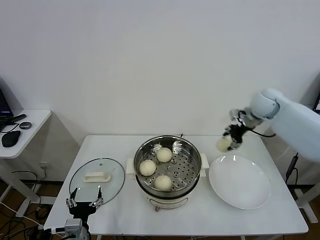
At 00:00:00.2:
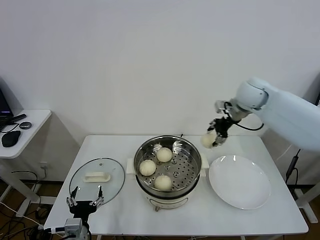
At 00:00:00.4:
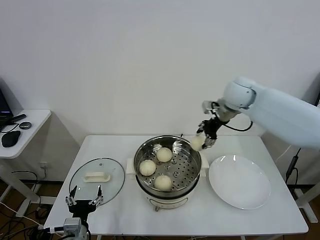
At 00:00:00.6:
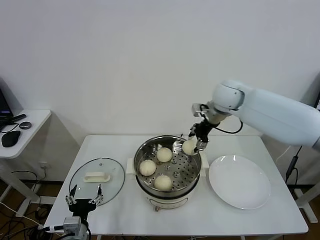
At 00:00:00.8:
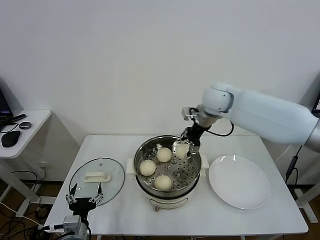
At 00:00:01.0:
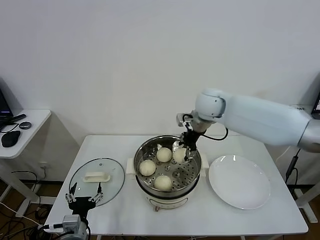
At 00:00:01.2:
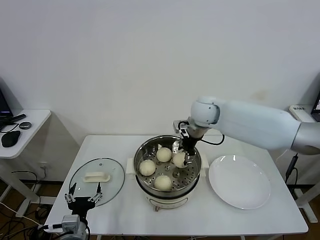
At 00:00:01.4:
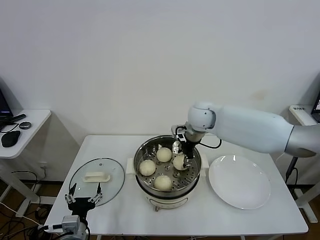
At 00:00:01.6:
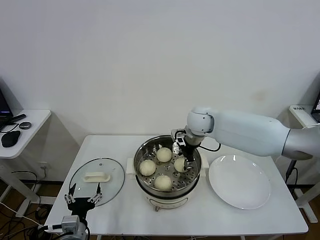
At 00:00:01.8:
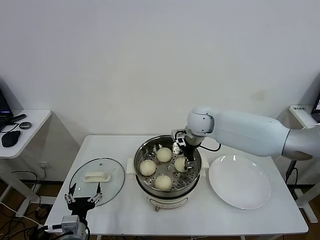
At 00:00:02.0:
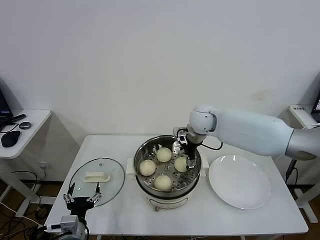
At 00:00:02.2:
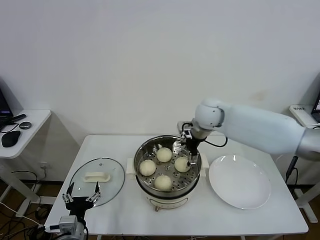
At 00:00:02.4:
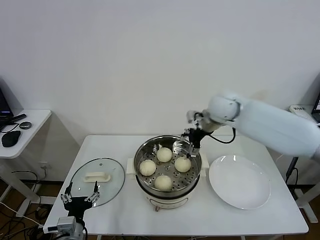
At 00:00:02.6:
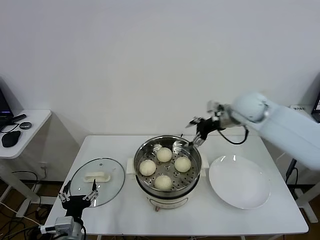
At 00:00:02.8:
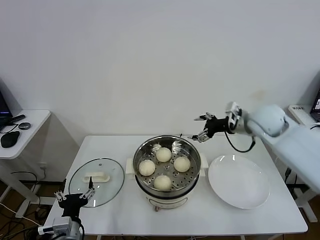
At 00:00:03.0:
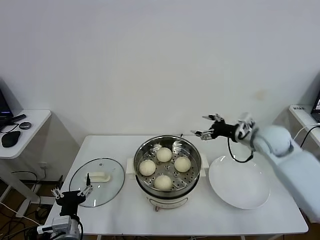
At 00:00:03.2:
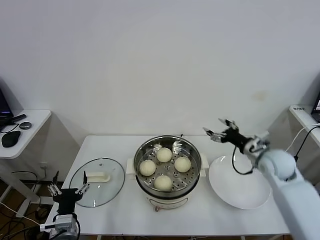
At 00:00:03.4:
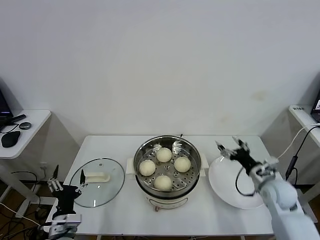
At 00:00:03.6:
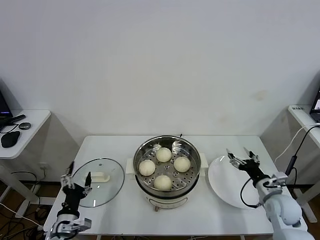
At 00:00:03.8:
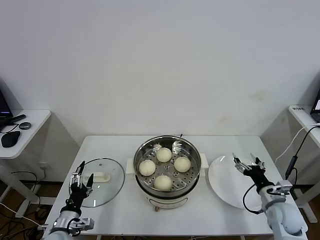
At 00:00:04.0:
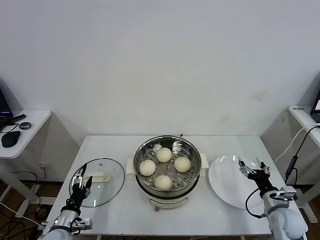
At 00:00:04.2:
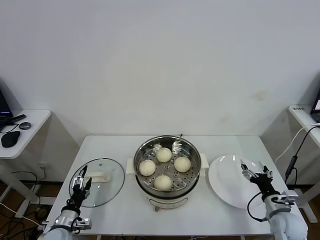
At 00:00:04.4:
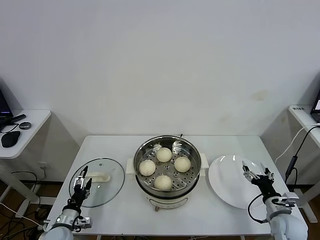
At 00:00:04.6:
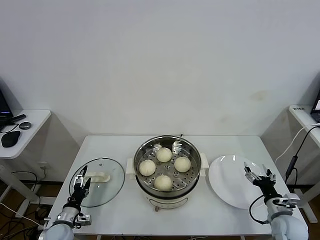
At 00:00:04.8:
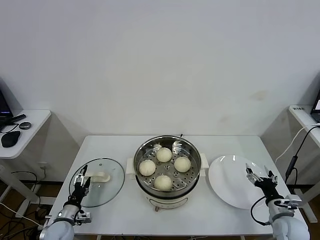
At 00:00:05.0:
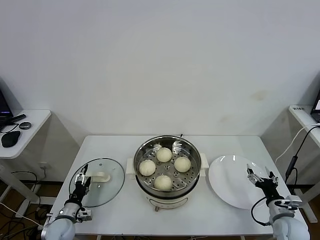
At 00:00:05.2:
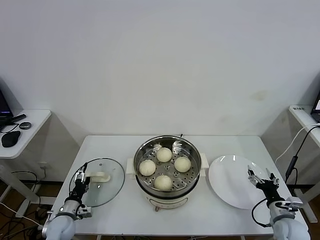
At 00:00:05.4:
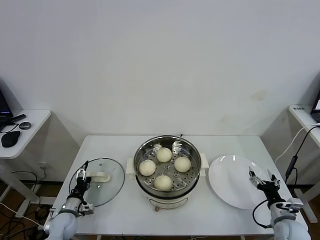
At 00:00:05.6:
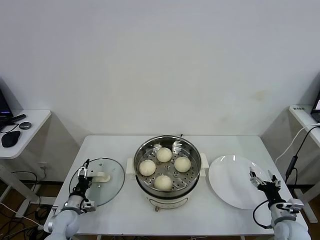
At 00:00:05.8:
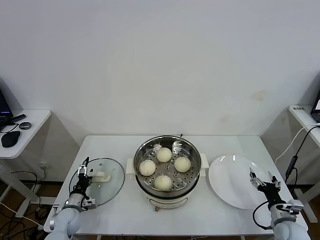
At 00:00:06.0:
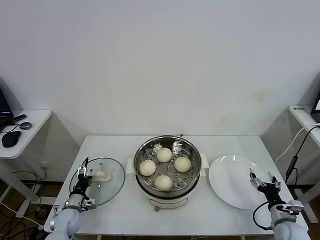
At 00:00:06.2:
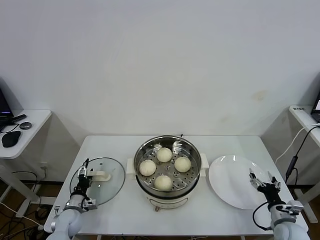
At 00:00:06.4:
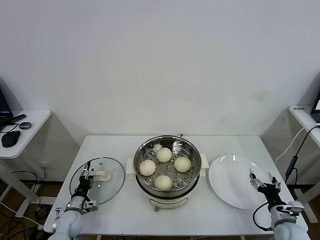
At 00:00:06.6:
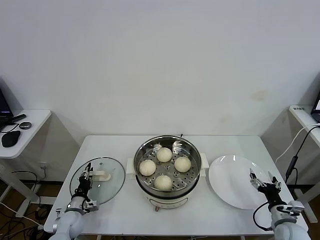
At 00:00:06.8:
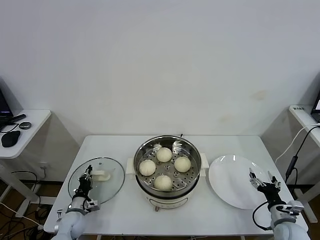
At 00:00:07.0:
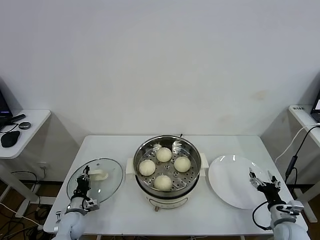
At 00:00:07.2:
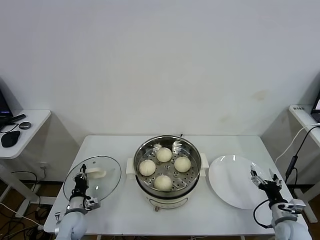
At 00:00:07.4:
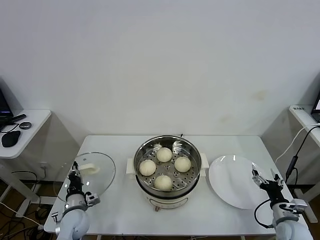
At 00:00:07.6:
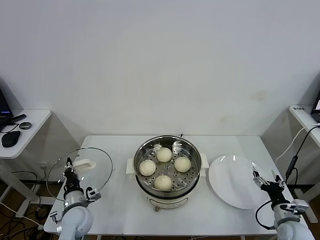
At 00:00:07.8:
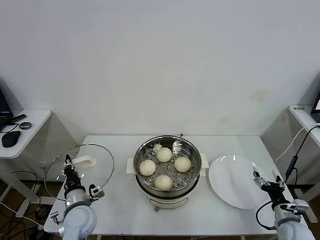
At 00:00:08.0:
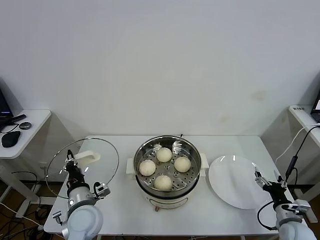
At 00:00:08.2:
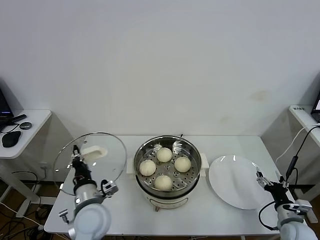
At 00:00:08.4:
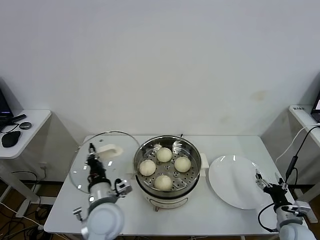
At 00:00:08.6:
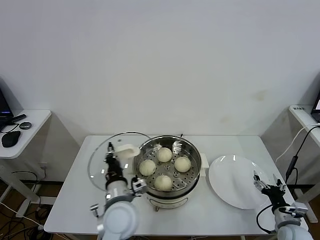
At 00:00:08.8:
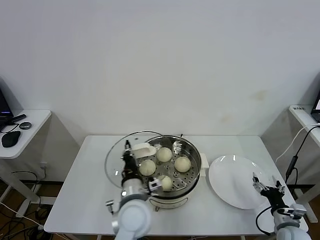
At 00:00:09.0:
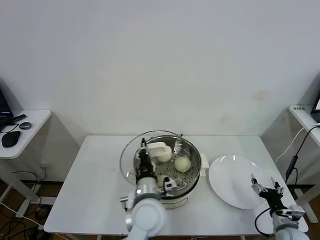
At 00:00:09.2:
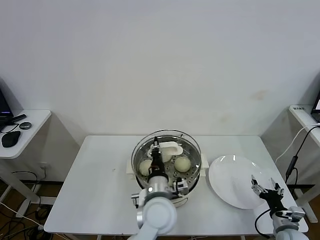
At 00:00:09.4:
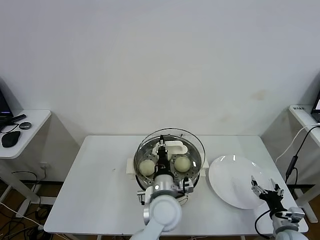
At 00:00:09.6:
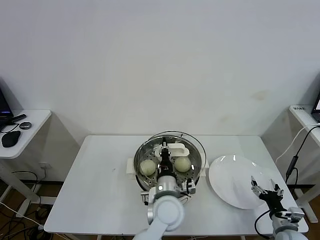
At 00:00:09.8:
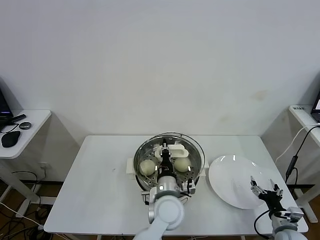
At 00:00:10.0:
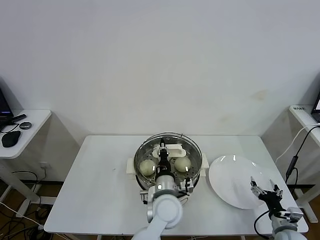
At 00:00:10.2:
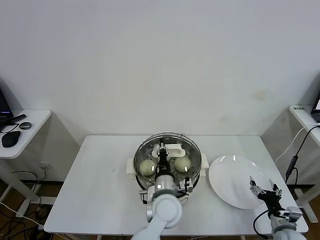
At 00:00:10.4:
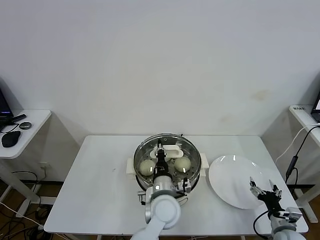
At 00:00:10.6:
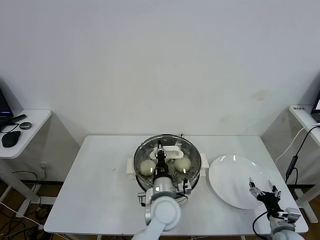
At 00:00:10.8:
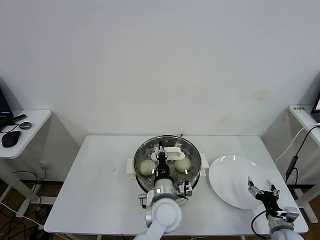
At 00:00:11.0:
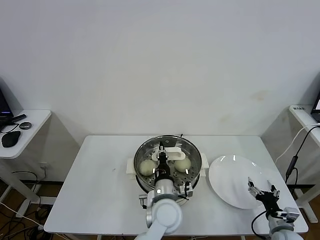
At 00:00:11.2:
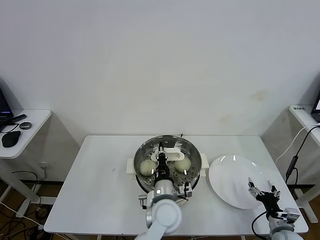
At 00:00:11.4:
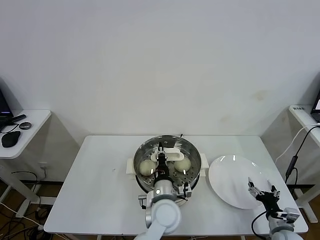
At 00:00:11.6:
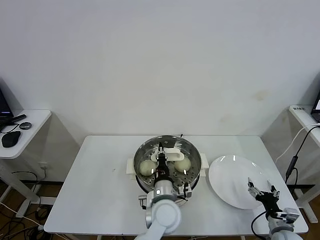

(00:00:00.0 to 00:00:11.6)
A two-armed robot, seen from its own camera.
Task of the whole recording: take steamed baozi put them in steamer.
Step, 00:00:00.0 - 00:00:02.2: Place the baozi on the steamer with right gripper.
Step, 00:00:02.4 - 00:00:07.0: Grasp the pot lid with left gripper.
00:00:00.0 - 00:00:01.4: The right gripper goes some 20 cm to the left.
00:00:01.4 - 00:00:02.8: The right gripper goes some 20 cm to the right, and opens.
00:00:02.8 - 00:00:04.4: The right gripper travels downward and backward by some 35 cm. Meanwhile the left gripper goes approximately 15 cm downward, to the left and forward.
00:00:04.4 - 00:00:05.8: The left gripper is displaced forward by about 10 cm.
00:00:05.8 - 00:00:07.2: The left gripper closes its fingers.
00:00:07.2 - 00:00:08.8: The left gripper shifts roughly 35 cm to the right and upward.
00:00:08.8 - 00:00:10.2: The left gripper travels to the right by about 10 cm.
00:00:10.2 - 00:00:11.6: The grippers make only small movements.

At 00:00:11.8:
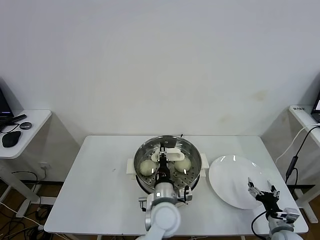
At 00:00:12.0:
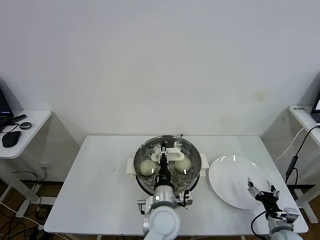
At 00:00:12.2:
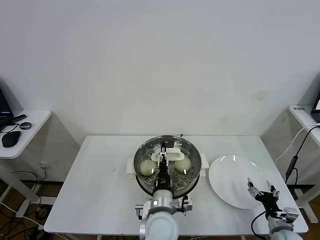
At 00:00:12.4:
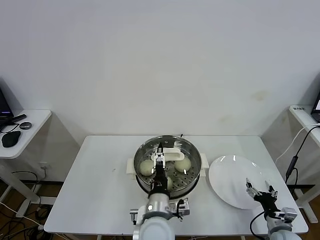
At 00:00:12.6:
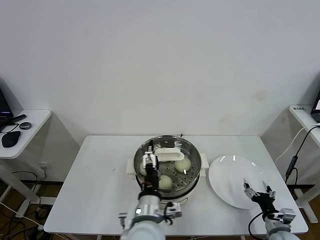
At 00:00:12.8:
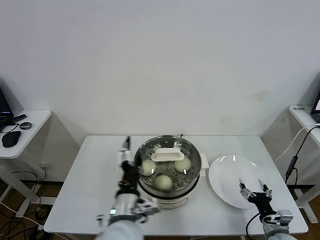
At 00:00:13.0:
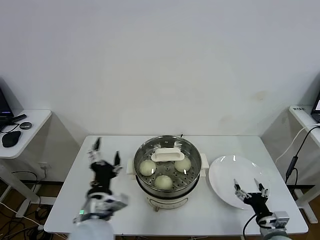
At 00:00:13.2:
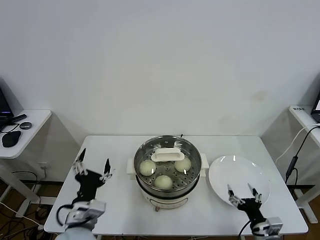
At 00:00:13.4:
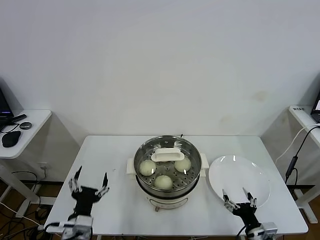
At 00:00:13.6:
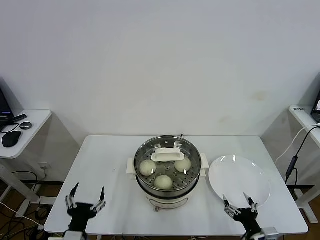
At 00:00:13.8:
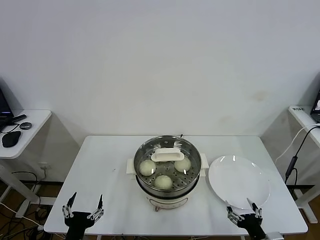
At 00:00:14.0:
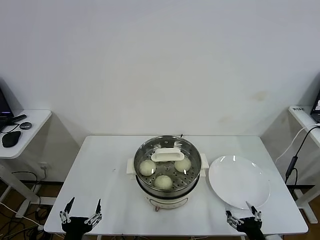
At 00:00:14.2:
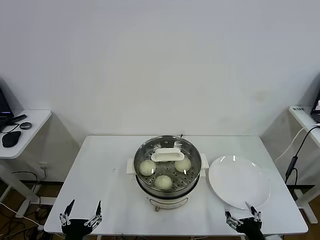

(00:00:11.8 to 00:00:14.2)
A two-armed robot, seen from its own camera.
Task of the whole recording: take steamed baozi put them in steamer.
00:00:11.8 - 00:00:13.0: The left gripper travels to the left, upward and backward by about 20 cm, and opens. The right gripper ends up roughly 5 cm from where it was.
00:00:13.0 - 00:00:14.2: The right gripper heads backward and to the left, covering approximately 10 cm. Meanwhile the left gripper travels to the left, backward and downward by about 20 cm.
